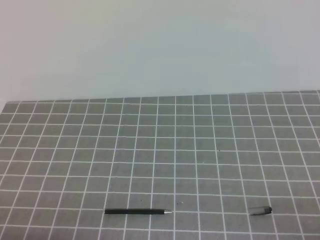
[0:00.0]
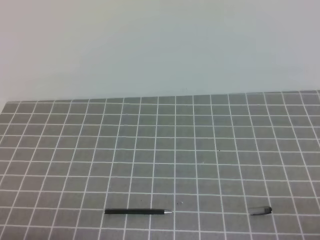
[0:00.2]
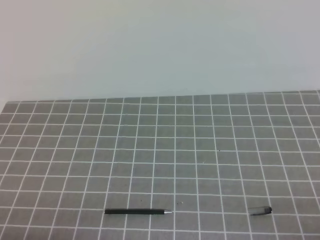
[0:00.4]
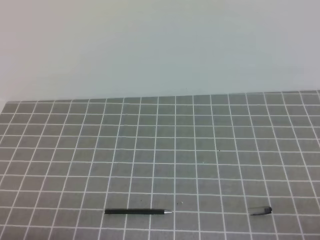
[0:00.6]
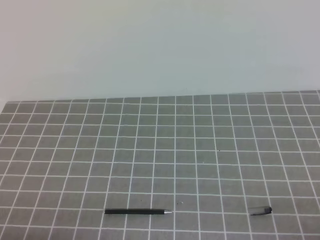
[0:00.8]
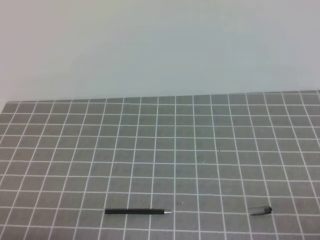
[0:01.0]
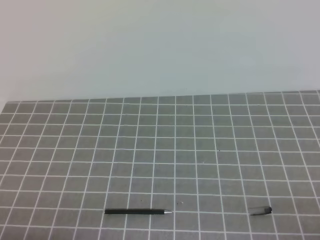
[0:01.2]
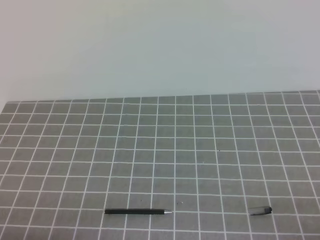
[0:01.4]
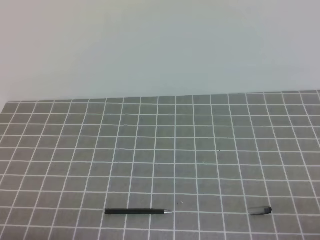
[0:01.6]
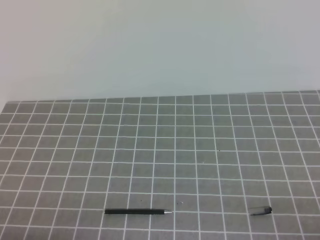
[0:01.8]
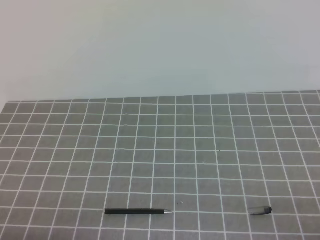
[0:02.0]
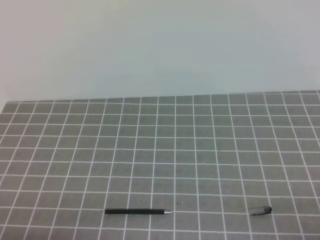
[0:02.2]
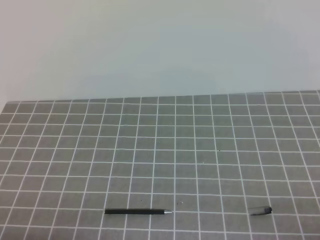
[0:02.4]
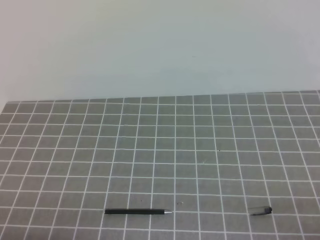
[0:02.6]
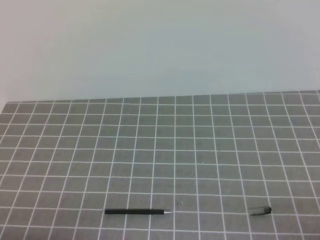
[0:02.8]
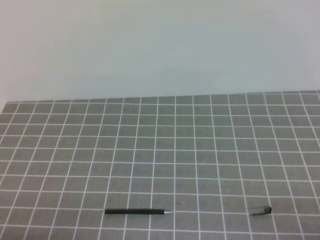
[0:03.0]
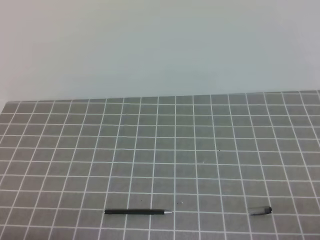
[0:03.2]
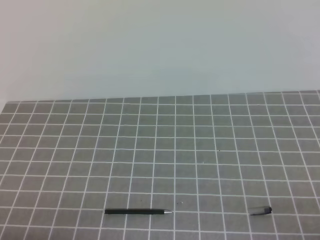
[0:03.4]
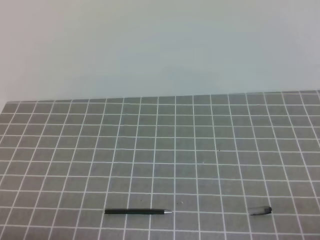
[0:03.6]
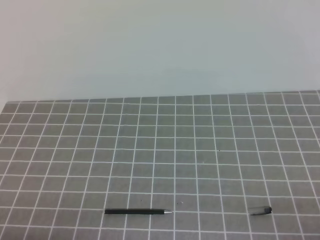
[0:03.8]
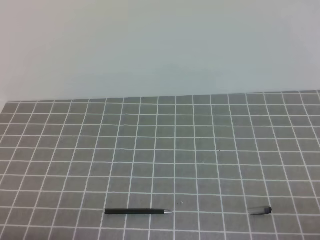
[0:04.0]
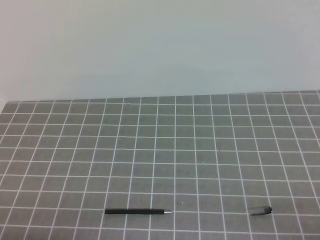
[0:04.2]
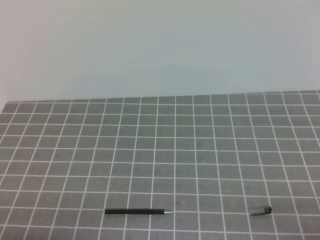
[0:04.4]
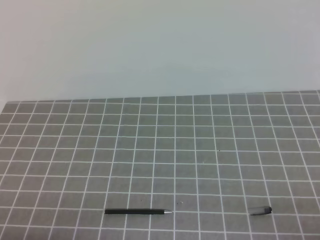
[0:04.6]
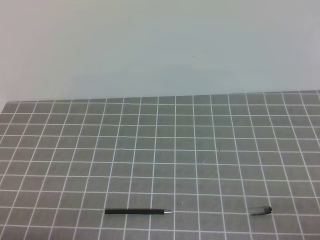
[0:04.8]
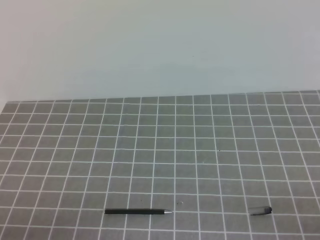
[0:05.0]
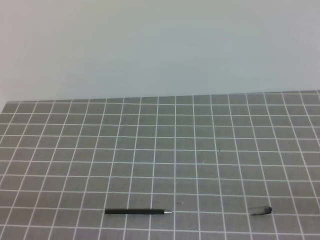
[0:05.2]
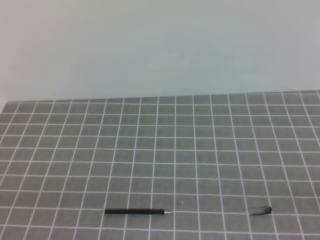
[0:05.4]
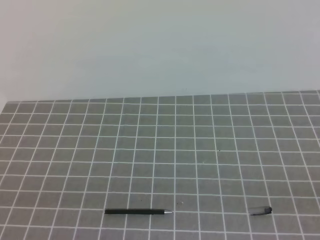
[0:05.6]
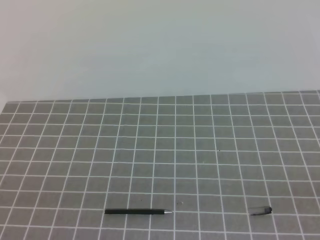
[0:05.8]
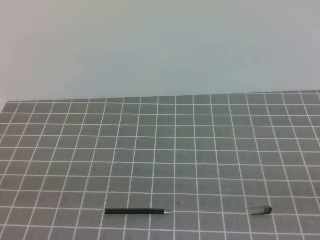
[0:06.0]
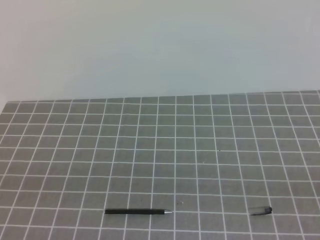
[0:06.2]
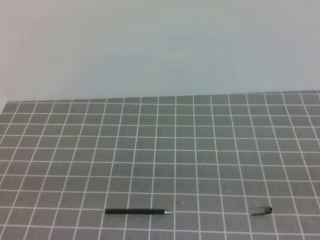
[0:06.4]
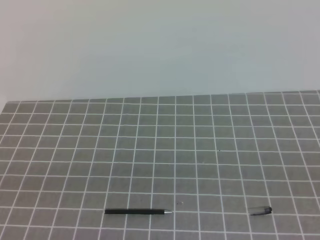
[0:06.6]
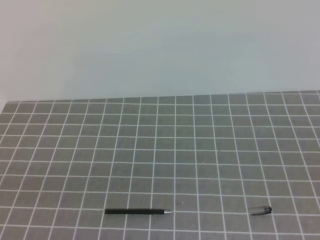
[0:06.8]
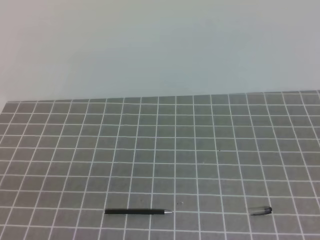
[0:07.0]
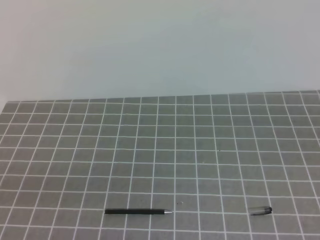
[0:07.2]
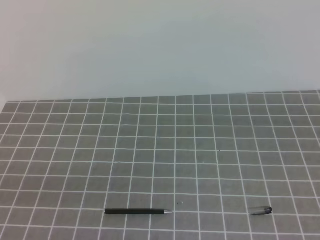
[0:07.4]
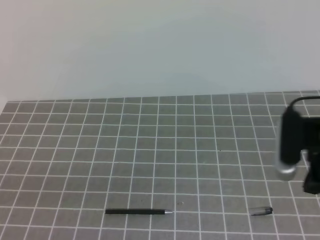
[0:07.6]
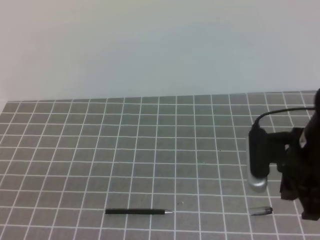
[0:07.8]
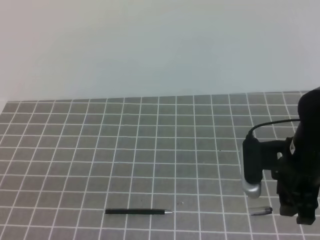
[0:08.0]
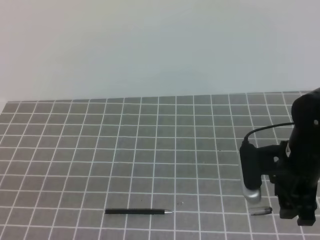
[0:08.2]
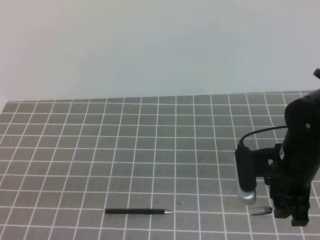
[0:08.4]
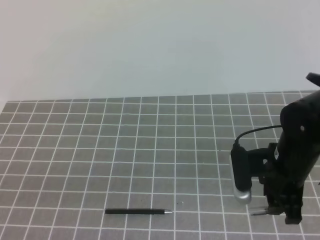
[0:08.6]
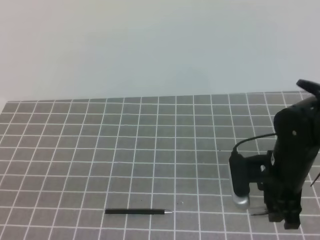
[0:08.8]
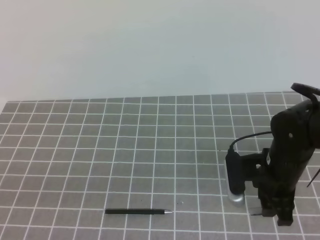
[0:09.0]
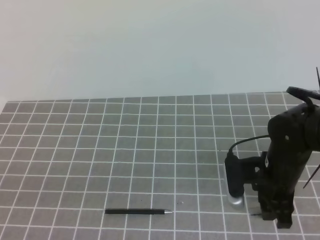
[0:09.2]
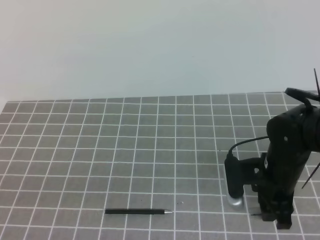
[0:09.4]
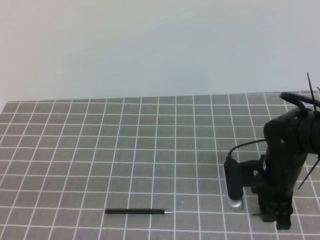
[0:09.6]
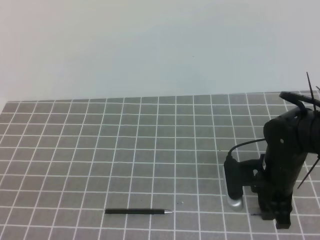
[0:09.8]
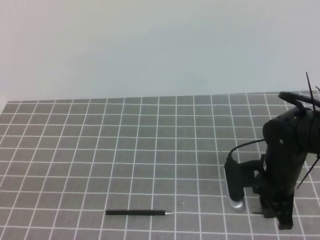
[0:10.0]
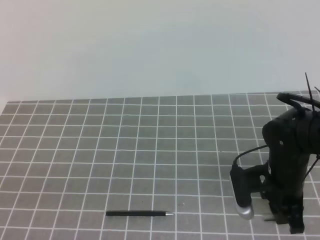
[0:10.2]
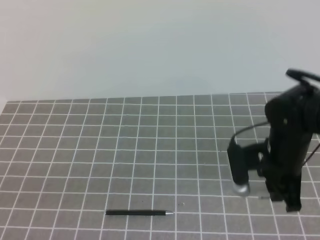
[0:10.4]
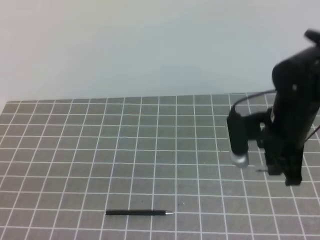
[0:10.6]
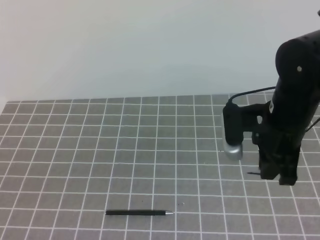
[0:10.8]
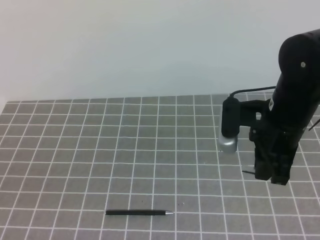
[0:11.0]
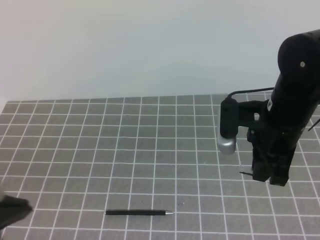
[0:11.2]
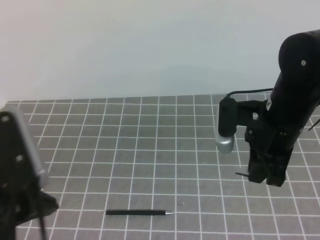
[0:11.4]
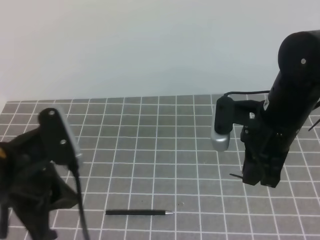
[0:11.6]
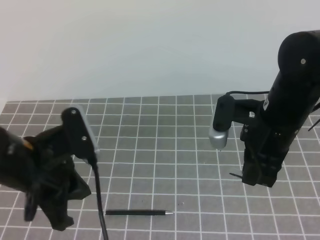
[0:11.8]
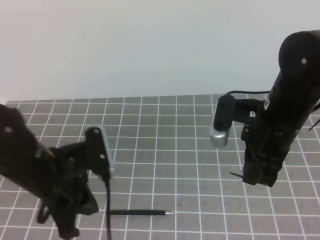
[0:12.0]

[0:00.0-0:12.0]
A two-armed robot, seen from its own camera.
Task of the whole recording: on the grey tablecloth, hold the pen cap in one hand and the pen in the other, then cover the pen cap.
0:00.0 to 0:04.4: Both grippers stay put.
0:06.0 to 0:07.6: The right gripper goes some 20 cm forward and to the left.
0:07.6 to 0:09.0: The right gripper shifts approximately 15 cm downward, to the left and forward, and opens up.
0:09.0 to 0:10.4: The right gripper closes up.
0:10.4 to 0:12.0: The right gripper is displaced upward by some 10 cm; the left gripper heads forward and to the right, covering about 20 cm.

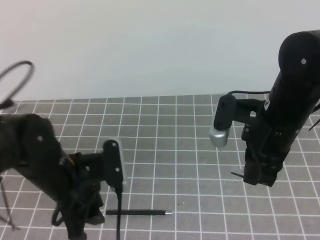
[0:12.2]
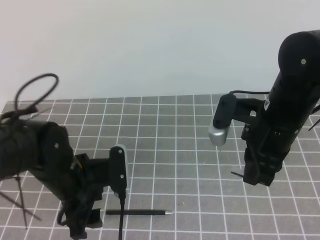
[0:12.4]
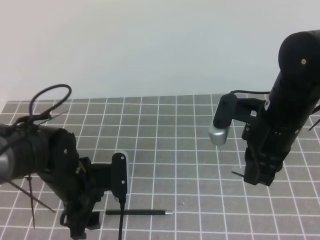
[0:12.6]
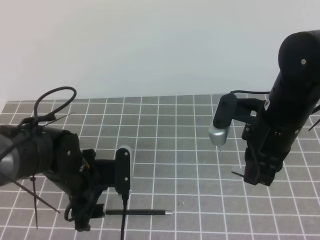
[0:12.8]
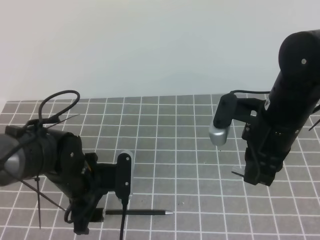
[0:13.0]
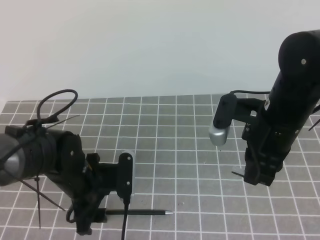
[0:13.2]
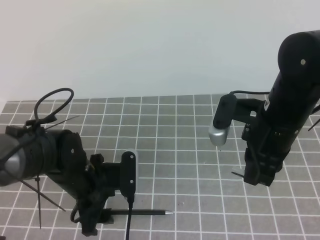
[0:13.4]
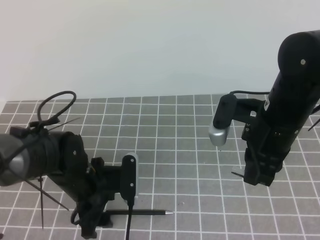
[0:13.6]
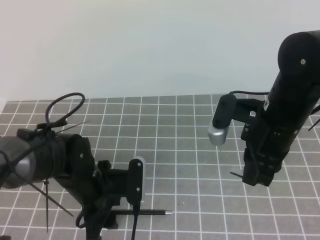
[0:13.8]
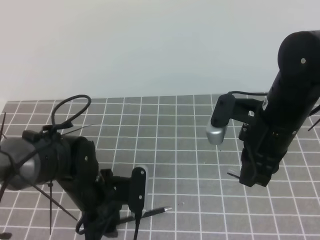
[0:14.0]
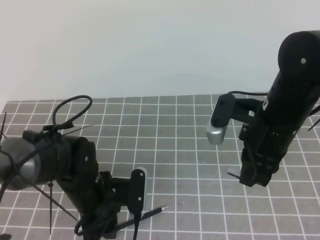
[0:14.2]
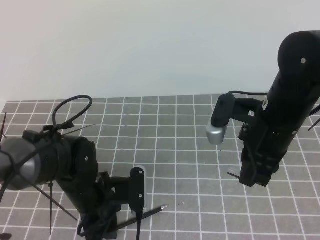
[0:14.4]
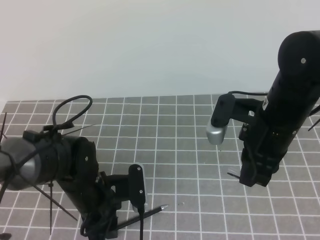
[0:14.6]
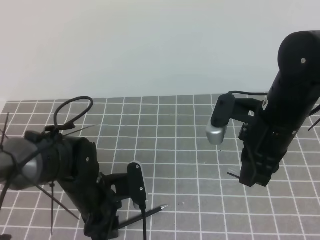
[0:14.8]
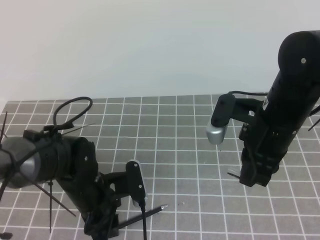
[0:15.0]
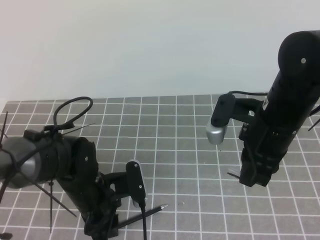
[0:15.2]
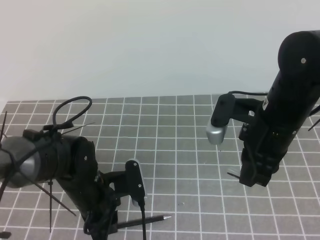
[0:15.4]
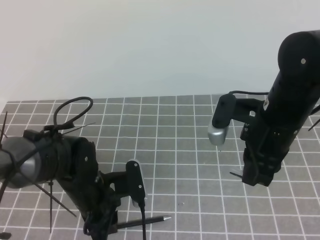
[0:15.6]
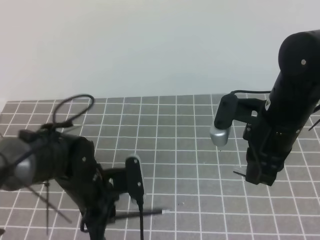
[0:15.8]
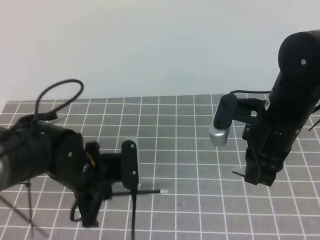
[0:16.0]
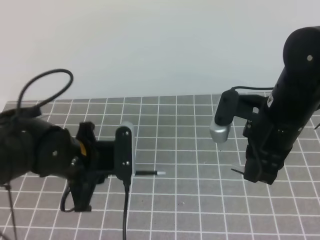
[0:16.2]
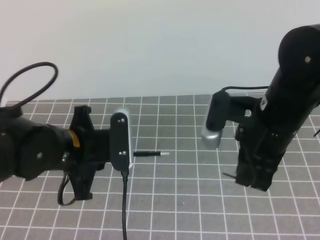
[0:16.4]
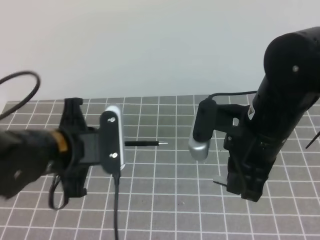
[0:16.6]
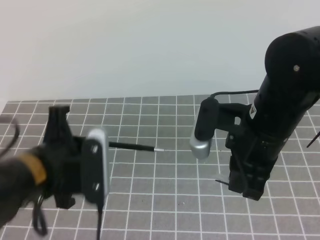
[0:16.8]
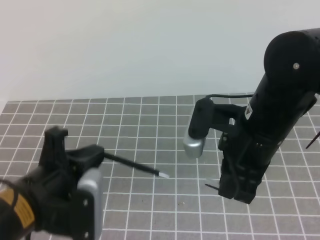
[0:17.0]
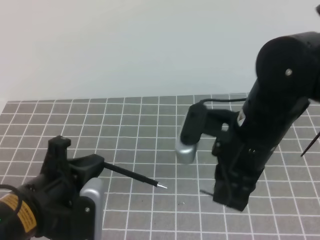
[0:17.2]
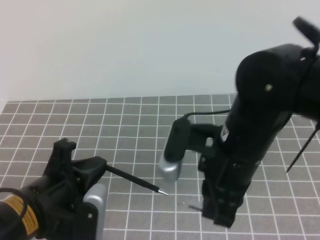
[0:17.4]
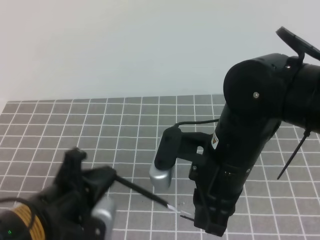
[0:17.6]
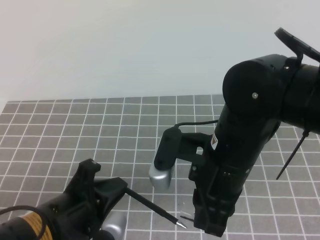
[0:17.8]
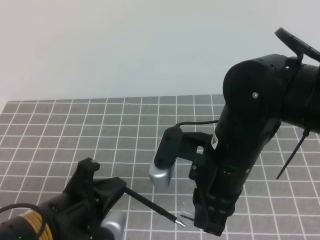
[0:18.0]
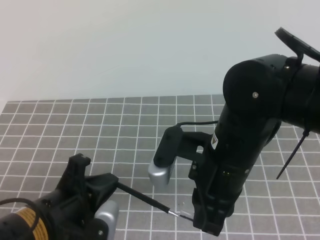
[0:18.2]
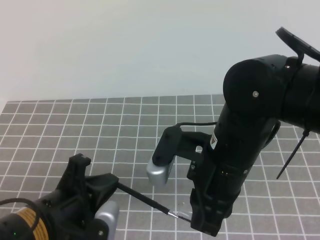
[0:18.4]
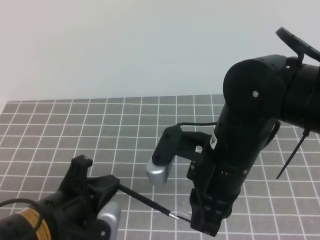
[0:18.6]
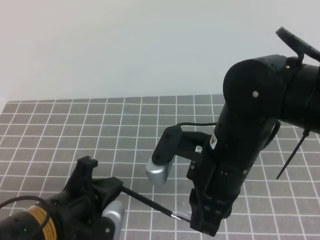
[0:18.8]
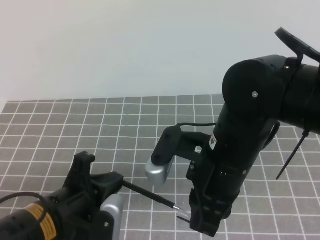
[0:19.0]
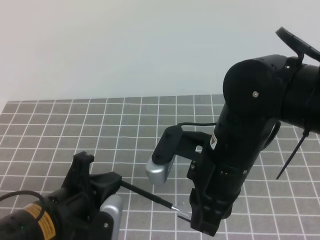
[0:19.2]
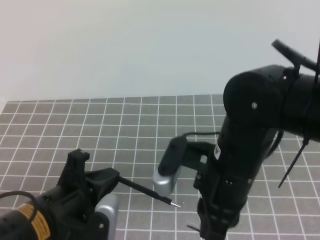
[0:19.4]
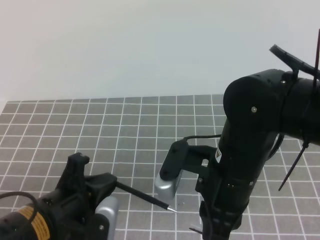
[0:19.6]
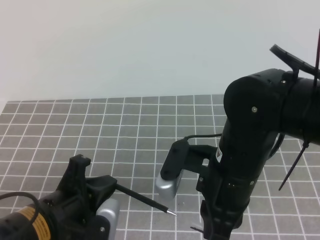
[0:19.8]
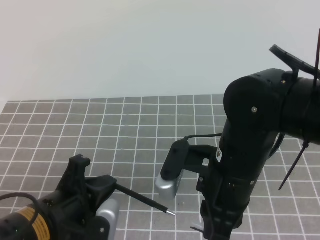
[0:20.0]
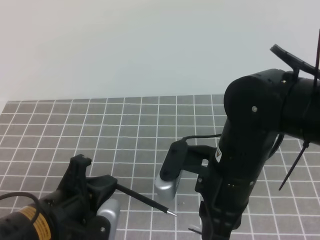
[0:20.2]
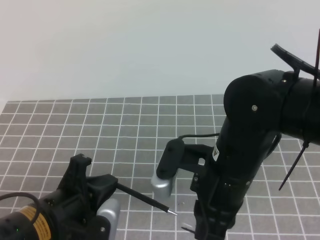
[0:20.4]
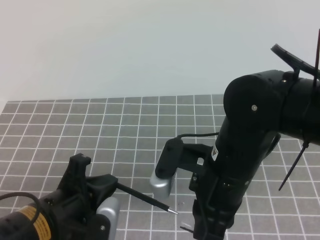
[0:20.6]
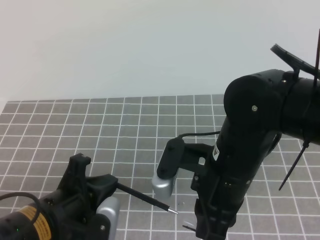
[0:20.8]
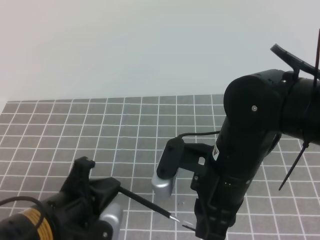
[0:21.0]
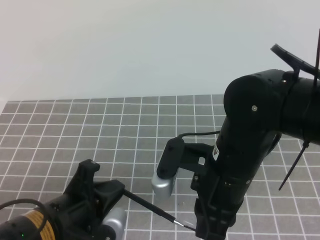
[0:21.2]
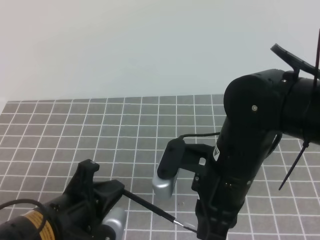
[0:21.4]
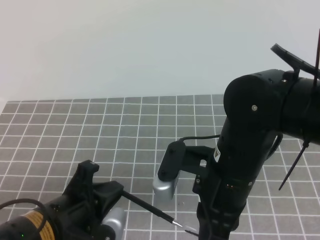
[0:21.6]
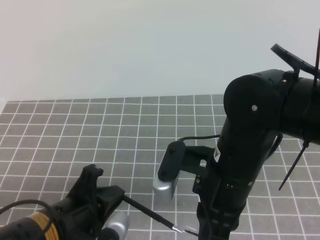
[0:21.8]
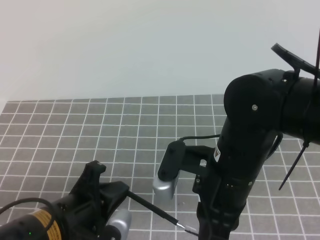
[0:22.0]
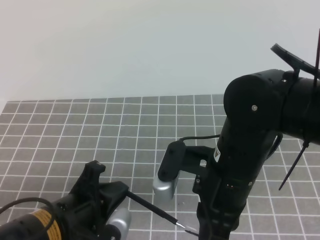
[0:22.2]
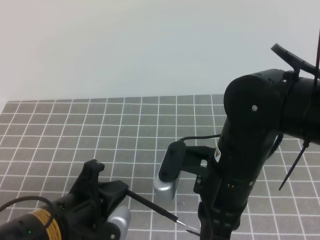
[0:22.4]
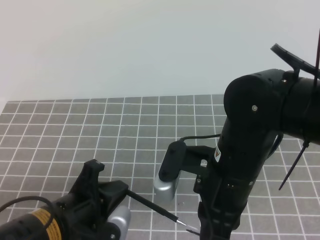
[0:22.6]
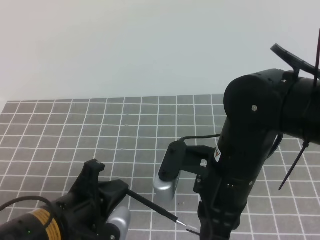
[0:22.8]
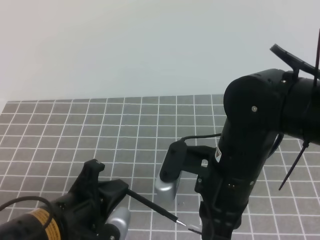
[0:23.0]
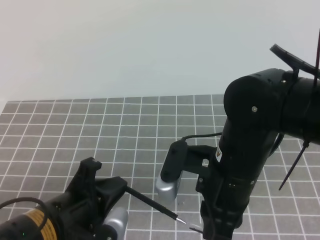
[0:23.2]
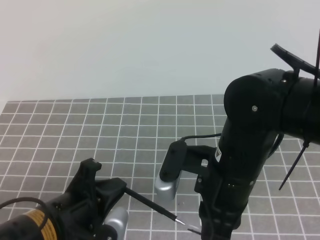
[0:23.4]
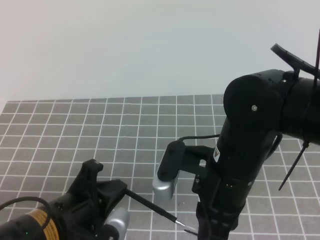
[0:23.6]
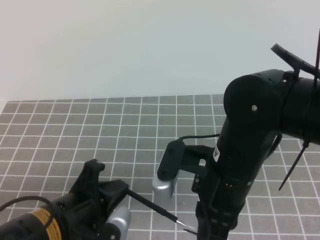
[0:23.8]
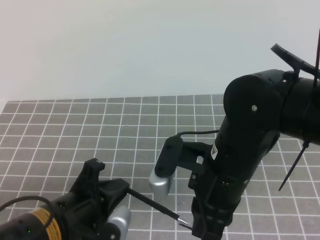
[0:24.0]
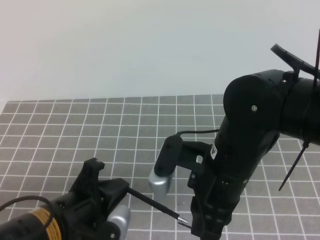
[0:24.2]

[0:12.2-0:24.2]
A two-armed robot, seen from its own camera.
Task of the whole recording: on the grey tablecloth, hold the pen cap in one hand and the pen in the other, then cover the pen cap.
0:12.2 to 0:13.8: The left gripper heads downward, covering some 5 cm, and opens up.
0:13.8 to 0:15.2: The left gripper closes its fingers.
0:15.2 to 0:16.6: The left gripper heads upward, covering roughly 10 cm.
0:16.6 to 0:18.2: The right gripper moves to the left, roughly 5 cm; the left gripper moves backward, some 5 cm.
0:18.2 to 0:19.8: The grippers make only small movements.
0:19.8 to 0:21.2: Both grippers stay about where they are.
0:21.2 to 0:24.2: Both grippers stay about where they are.
